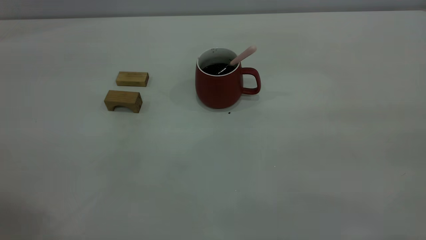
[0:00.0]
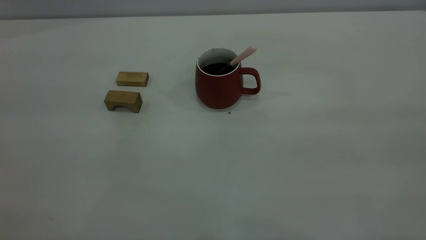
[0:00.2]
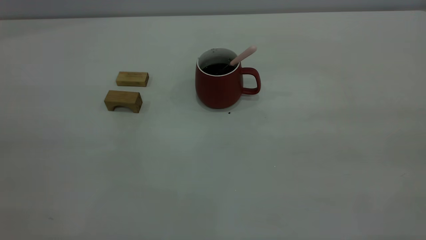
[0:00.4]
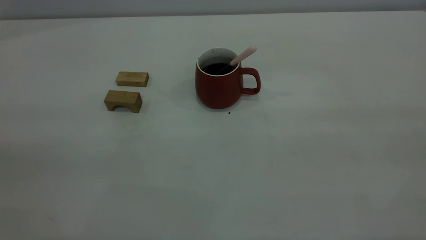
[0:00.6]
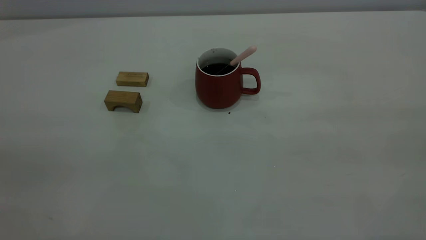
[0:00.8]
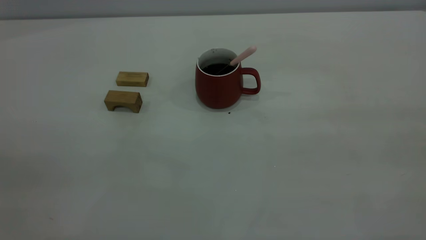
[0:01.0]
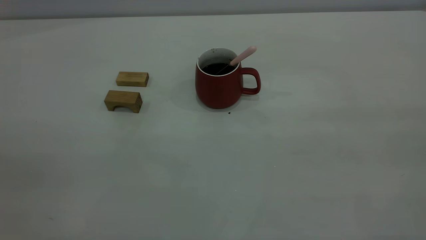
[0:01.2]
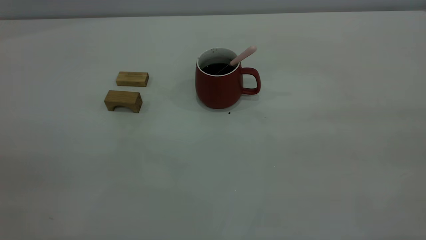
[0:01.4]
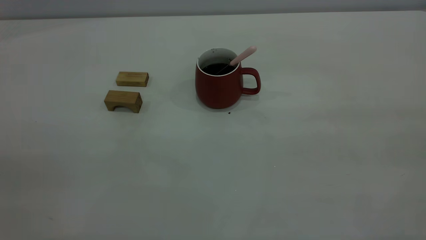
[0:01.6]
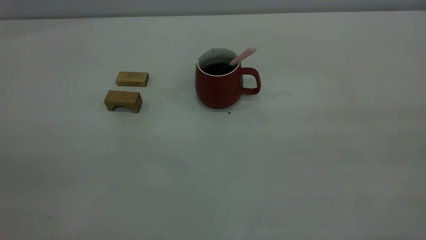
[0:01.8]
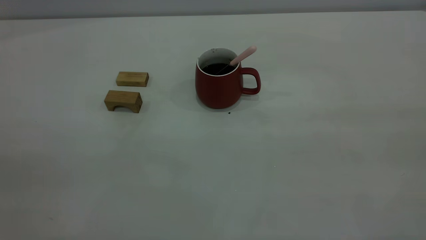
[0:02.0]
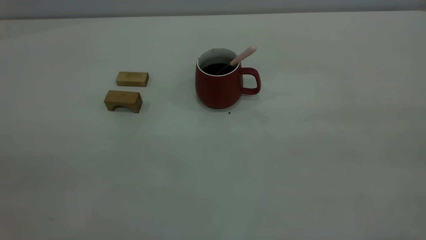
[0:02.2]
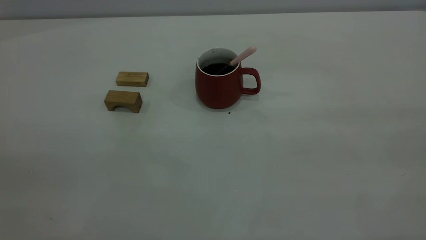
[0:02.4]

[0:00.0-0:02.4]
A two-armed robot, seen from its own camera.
0:01.2 to 0:02.4: Both grippers stay about where they are.
